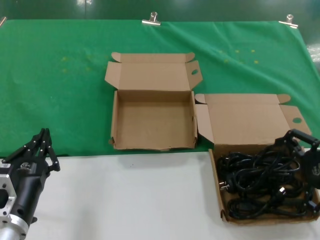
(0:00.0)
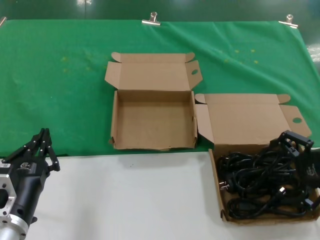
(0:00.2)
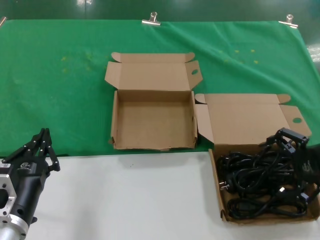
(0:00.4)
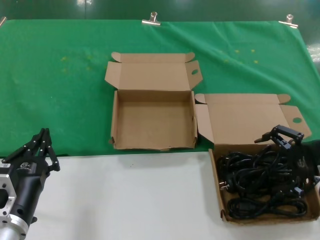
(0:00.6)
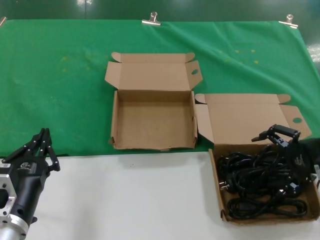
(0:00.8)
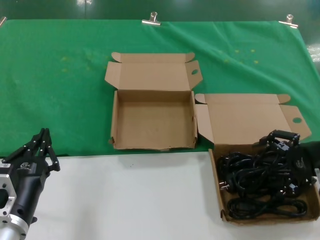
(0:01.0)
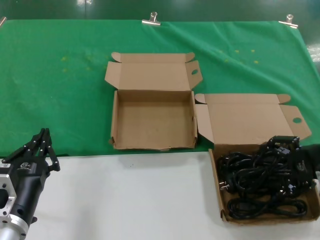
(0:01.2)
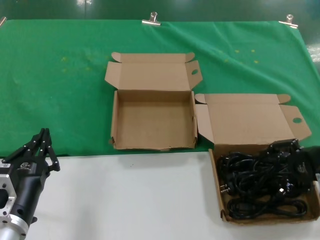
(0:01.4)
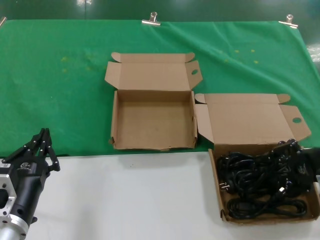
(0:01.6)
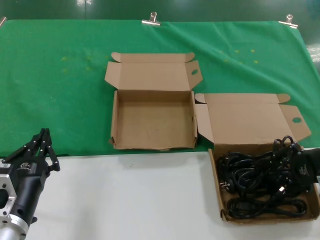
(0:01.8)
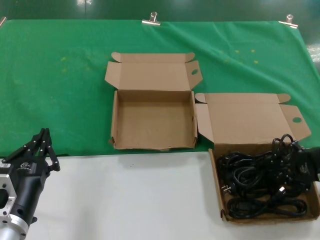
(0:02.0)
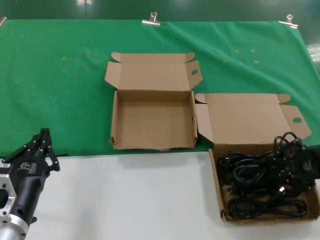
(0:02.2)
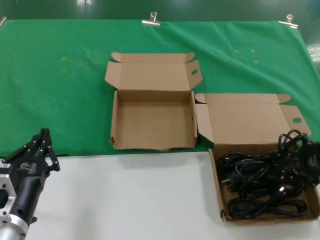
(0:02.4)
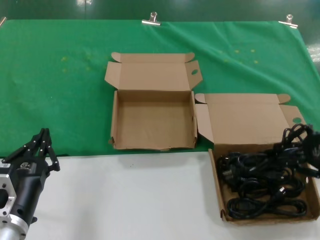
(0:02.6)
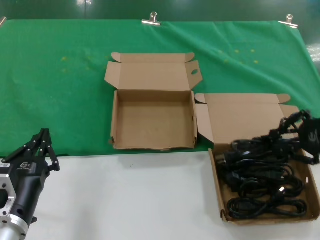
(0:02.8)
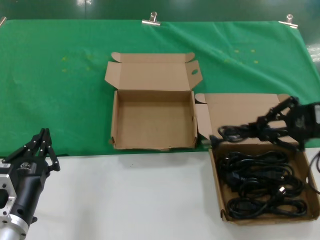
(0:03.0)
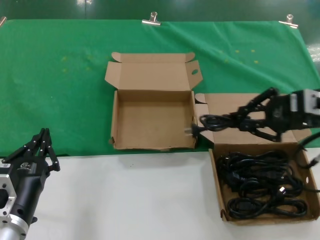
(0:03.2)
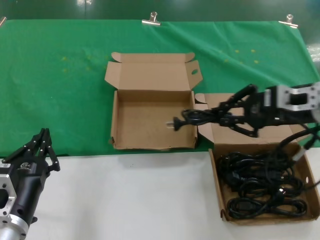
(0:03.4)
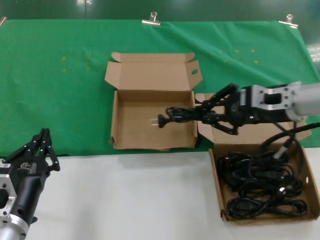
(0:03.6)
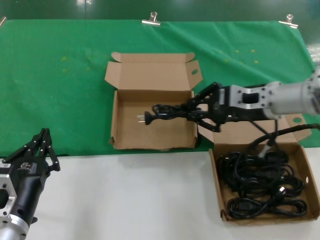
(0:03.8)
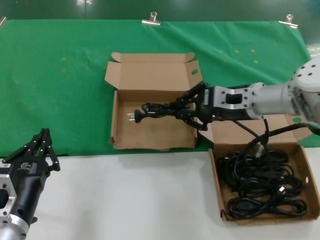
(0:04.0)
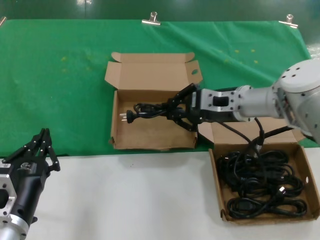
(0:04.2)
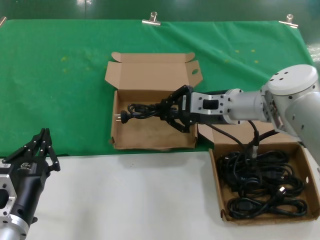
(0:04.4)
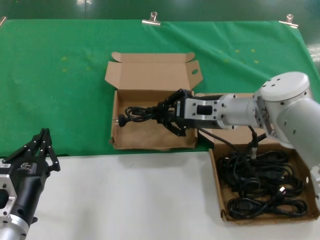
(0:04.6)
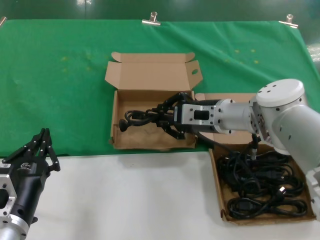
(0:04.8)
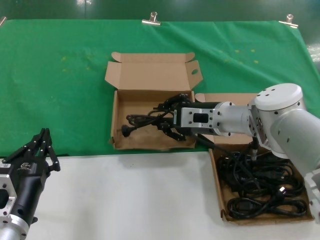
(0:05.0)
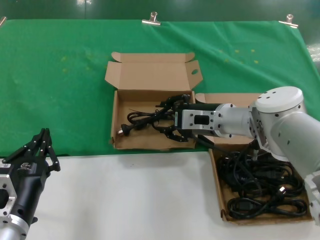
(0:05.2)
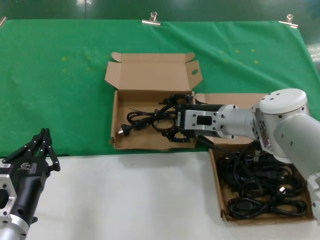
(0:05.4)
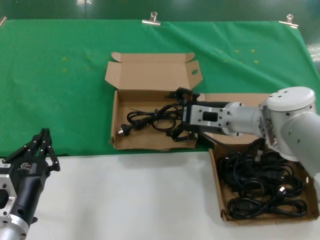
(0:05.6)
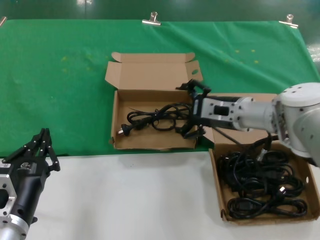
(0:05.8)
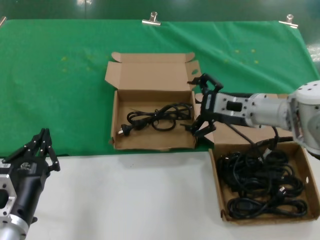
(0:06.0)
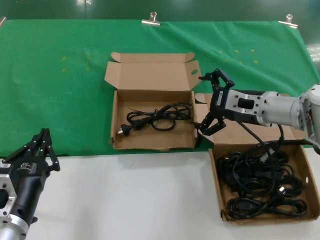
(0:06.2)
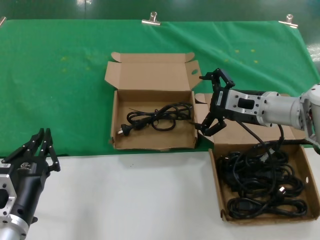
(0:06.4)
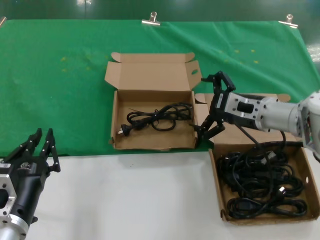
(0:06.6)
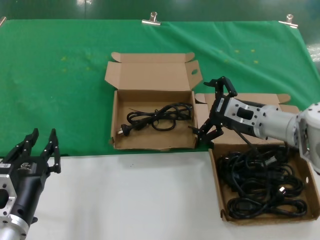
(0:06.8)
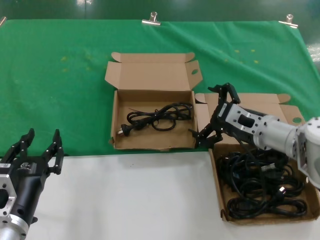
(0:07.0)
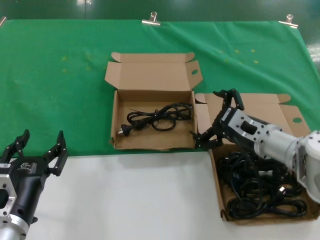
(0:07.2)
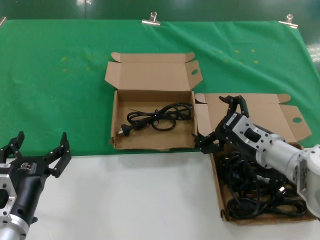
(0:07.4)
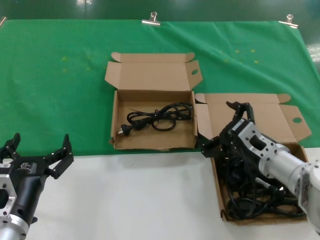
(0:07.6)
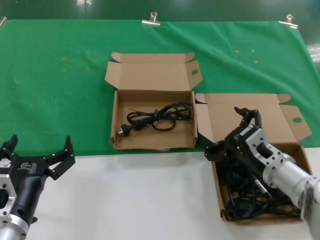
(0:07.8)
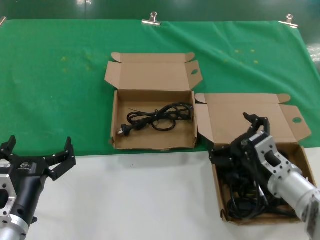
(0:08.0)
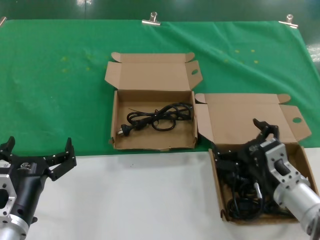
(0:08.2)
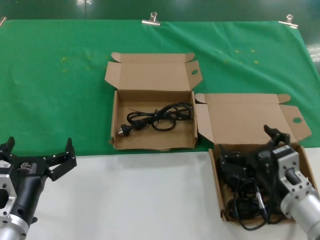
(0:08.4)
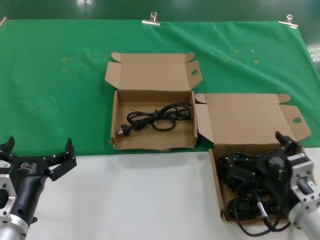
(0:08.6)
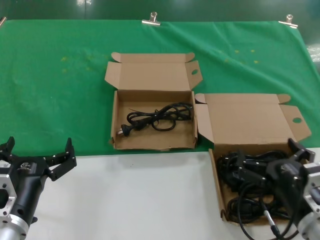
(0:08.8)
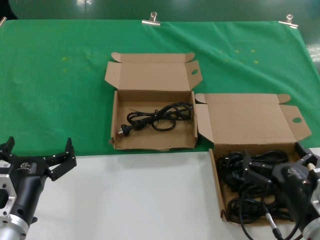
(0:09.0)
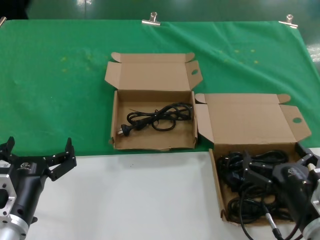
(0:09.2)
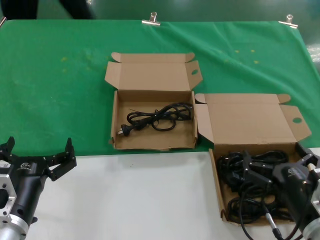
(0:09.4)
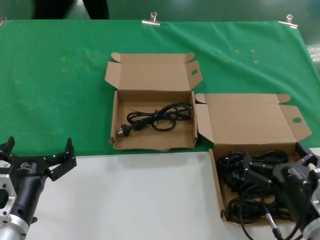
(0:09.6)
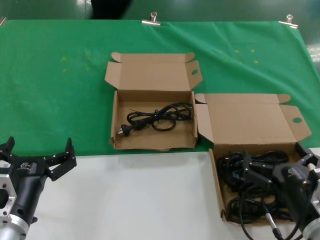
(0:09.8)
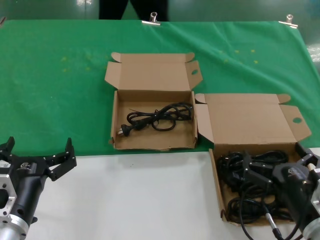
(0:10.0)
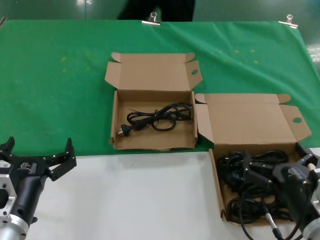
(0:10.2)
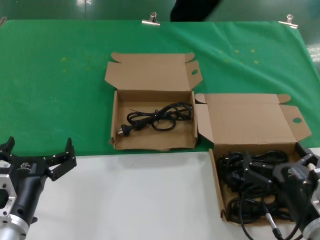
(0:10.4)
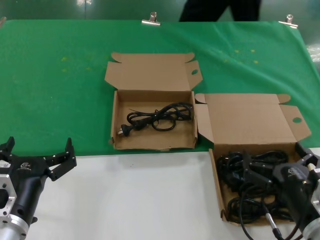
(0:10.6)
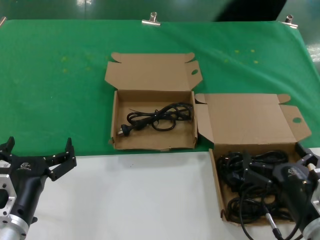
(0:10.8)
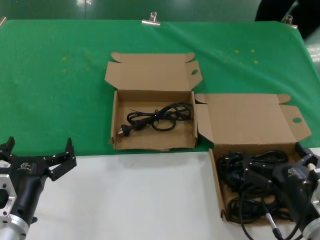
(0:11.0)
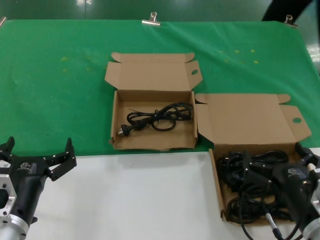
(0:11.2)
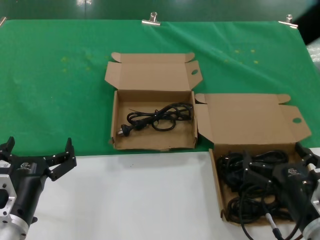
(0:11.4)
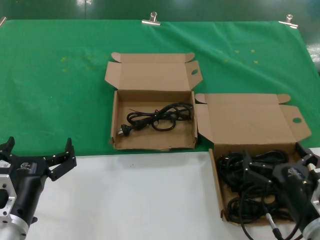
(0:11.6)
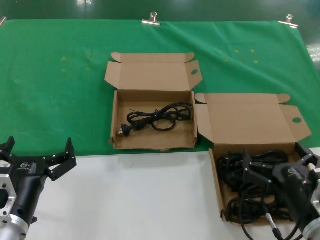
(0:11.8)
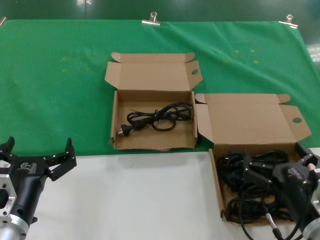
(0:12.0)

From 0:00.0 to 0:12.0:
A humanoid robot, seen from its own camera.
Task of the whole recording: take the parts from the box containing them and put them into an empty box.
Step, from 0:01.6 to 0:05.2: Place the data cable in the another box.
From 0:00.0 to 0:01.6: The right hand moves downward and forward, roughly 10 cm.
From 0:01.6 to 0:03.0: The right hand goes approximately 10 cm upward.
From 0:03.0 to 0:04.4: The right hand travels to the left and forward by some 25 cm.
From 0:04.4 to 0:06.0: The hands move only a little.
From 0:06.0 to 0:07.6: The right hand moves downward and backward, roughly 10 cm.
From 0:07.6 to 0:09.0: The right hand is displaced backward by about 15 cm.
From 0:09.0 to 0:12.0: Neither hand changes place.

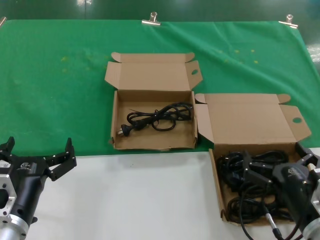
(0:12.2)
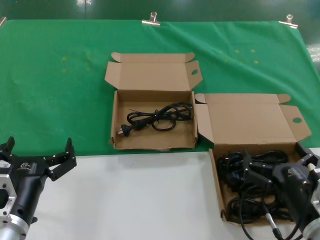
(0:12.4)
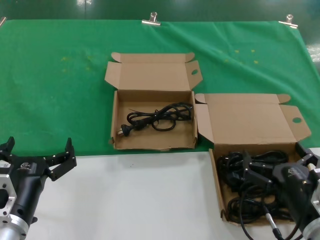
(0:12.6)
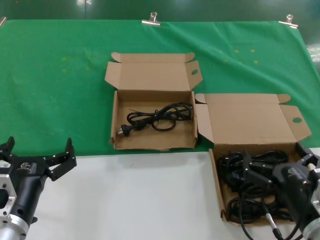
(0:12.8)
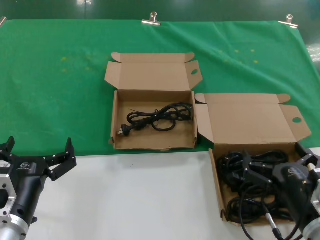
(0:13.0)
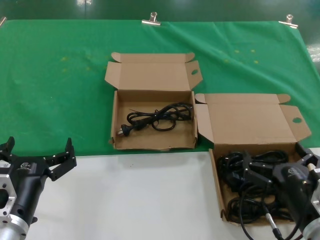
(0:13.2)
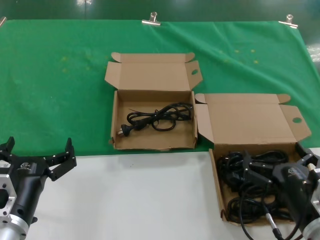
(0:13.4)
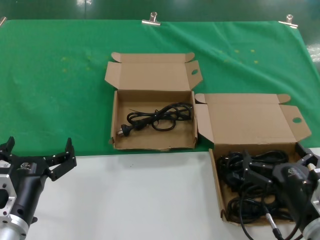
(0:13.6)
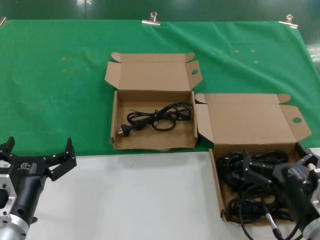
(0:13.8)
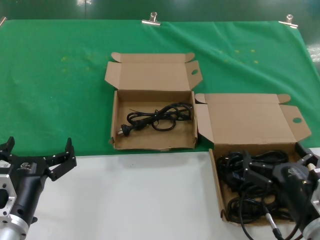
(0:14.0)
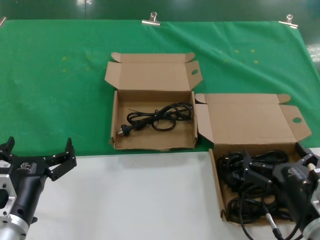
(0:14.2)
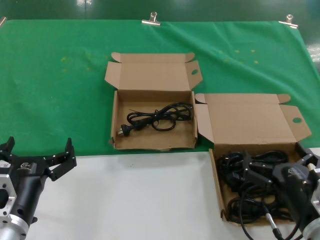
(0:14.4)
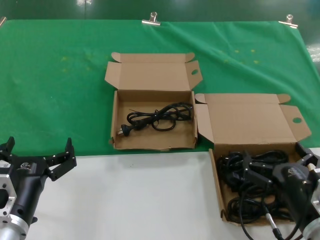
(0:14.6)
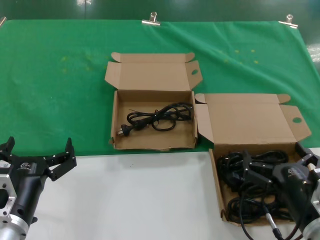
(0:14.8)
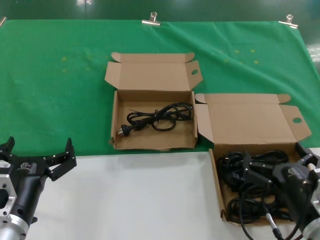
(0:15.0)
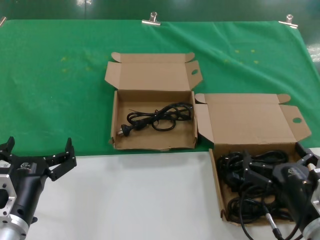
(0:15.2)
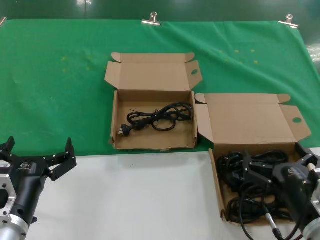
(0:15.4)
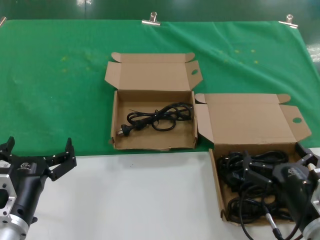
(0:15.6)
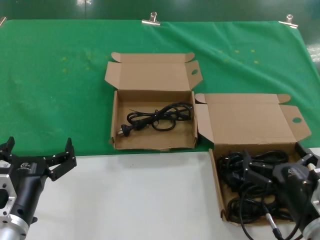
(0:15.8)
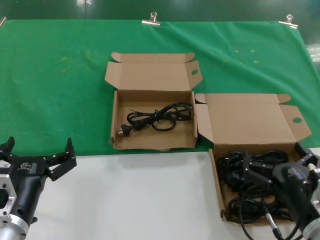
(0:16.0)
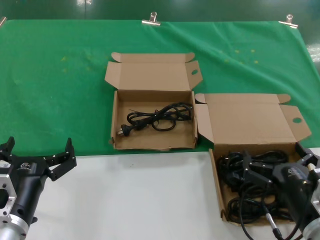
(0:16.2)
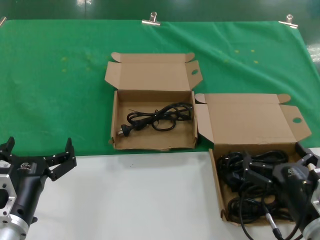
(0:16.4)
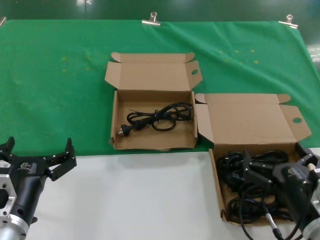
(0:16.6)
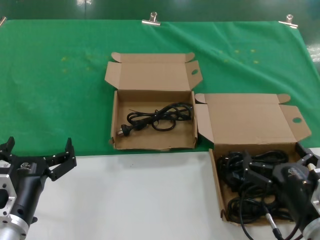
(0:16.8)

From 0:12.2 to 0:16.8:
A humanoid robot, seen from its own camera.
Task of the whole recording: take the parts from the box containing them and put them into an empty box.
From 0:12.2 to 0:16.8: Neither hand changes place.

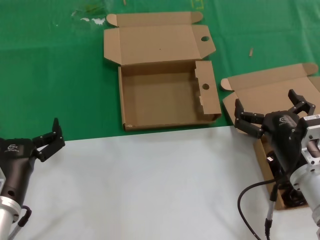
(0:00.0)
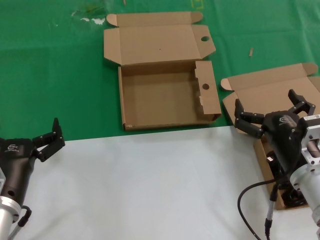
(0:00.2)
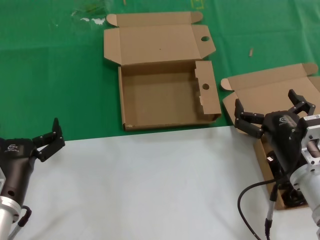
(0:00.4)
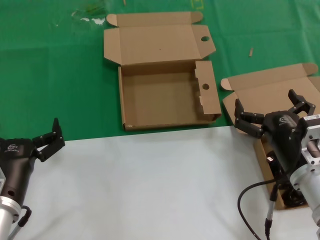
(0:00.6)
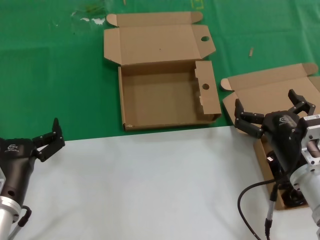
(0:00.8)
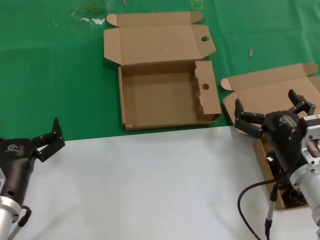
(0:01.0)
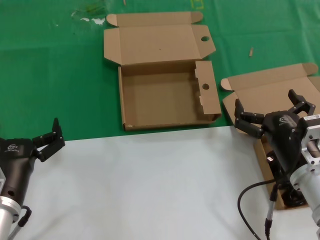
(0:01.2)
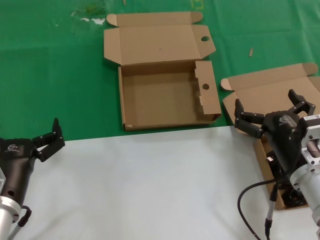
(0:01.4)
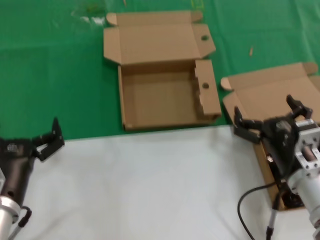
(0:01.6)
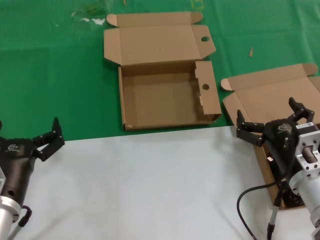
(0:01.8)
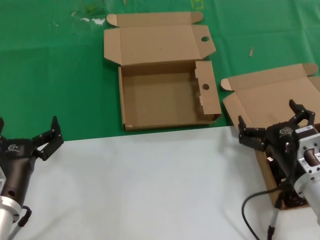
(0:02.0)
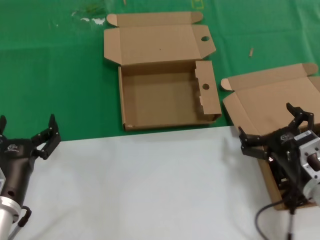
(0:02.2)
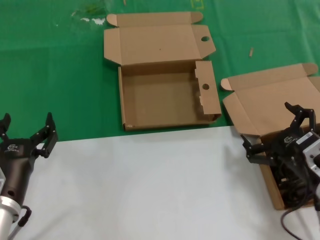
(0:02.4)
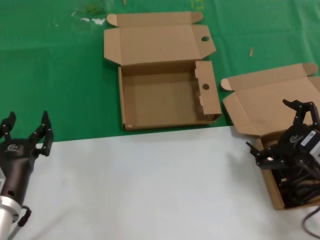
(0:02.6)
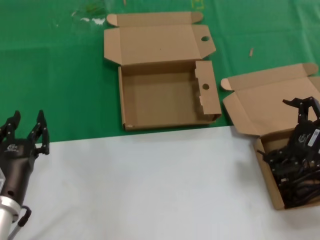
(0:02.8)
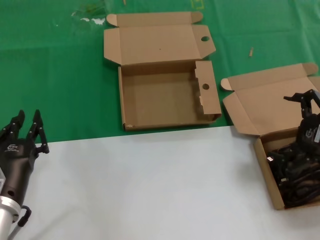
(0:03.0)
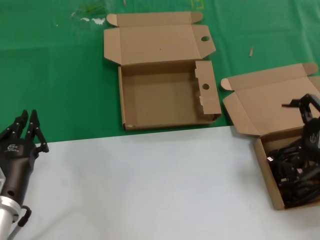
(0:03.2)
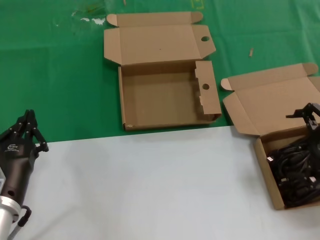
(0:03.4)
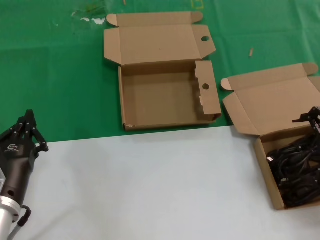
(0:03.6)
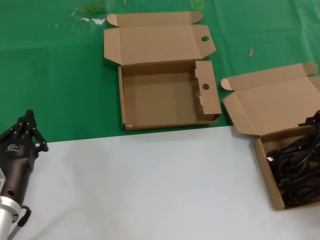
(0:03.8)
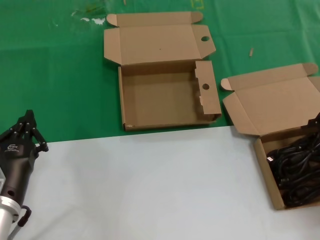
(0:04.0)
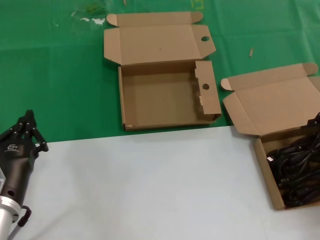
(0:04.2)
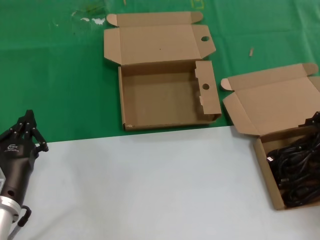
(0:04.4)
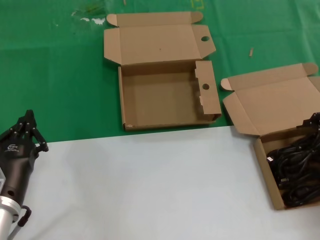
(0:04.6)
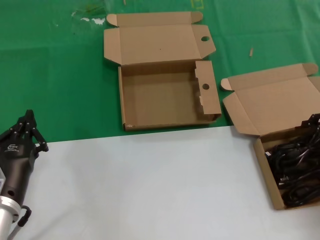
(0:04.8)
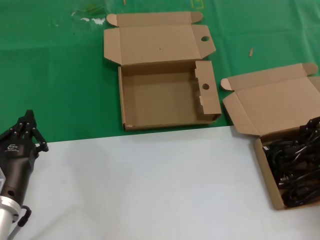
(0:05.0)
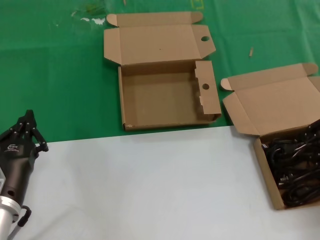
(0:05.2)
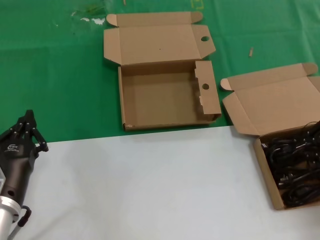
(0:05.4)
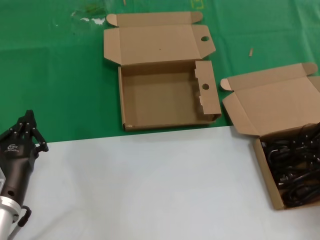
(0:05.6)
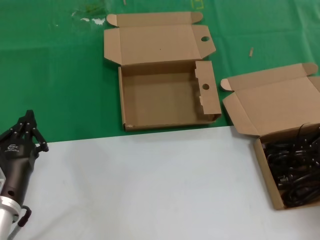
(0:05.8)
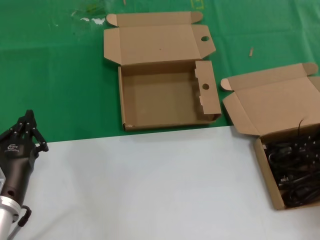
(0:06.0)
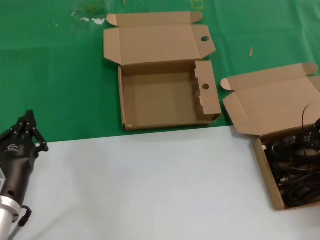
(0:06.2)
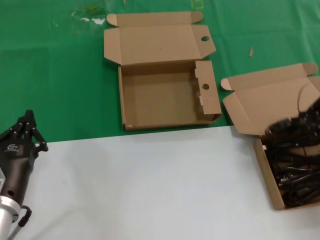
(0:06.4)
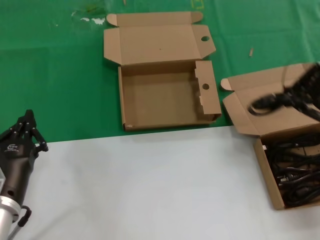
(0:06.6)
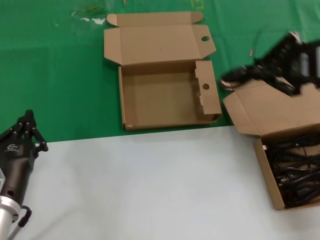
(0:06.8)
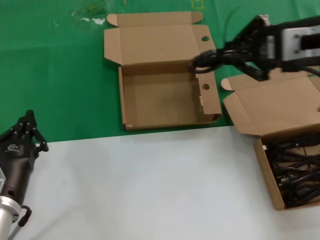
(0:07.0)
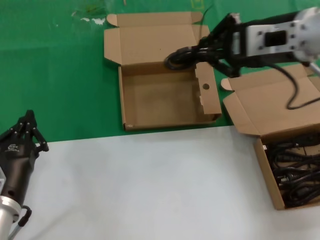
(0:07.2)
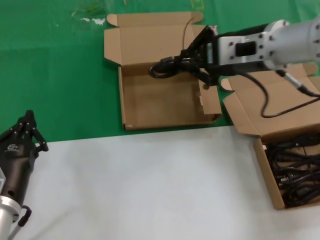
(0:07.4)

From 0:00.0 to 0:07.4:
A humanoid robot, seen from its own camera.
Task of the whole recording: take the parts from the box containing them and put them into an empty box.
Step, from 0:00.0 to 0:05.4: Grasp the data cable.
From 0:00.0 to 0:01.4: Neither hand changes place.
From 0:01.4 to 0:03.0: The right hand moves to the right and upward, approximately 15 cm.
From 0:03.0 to 0:04.4: The right hand shifts about 5 cm to the right.
From 0:06.0 to 0:07.4: The right hand is displaced to the left, upward and forward by about 25 cm.
